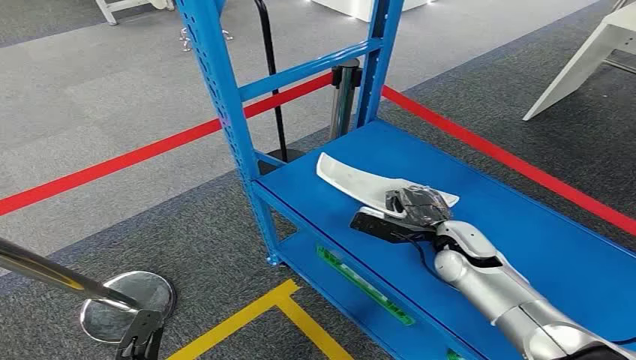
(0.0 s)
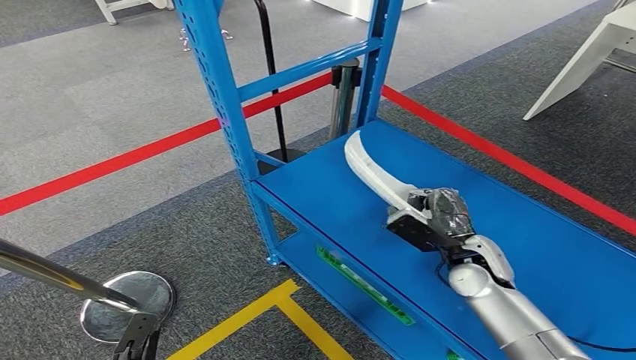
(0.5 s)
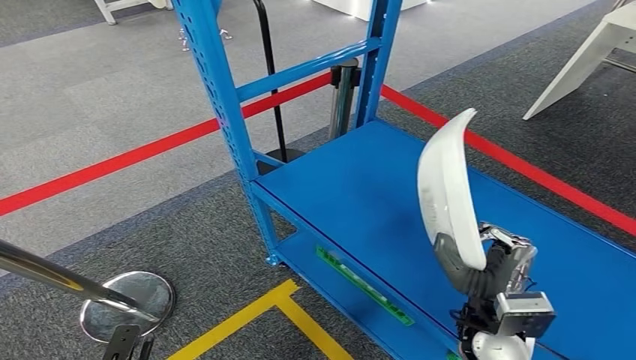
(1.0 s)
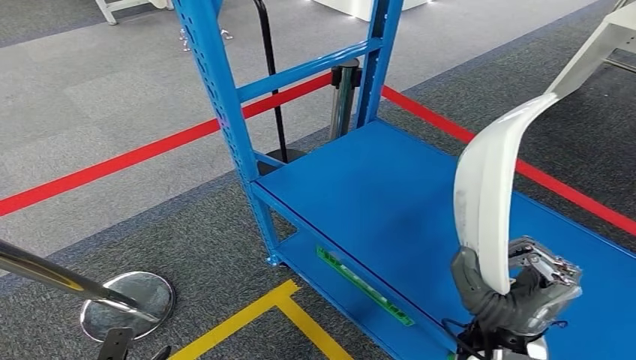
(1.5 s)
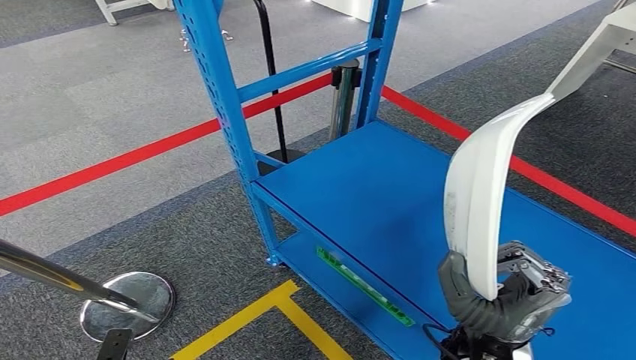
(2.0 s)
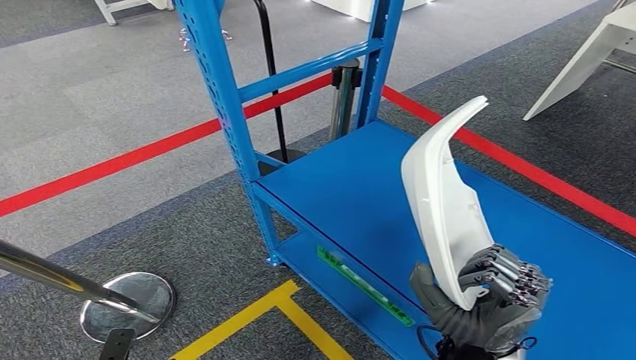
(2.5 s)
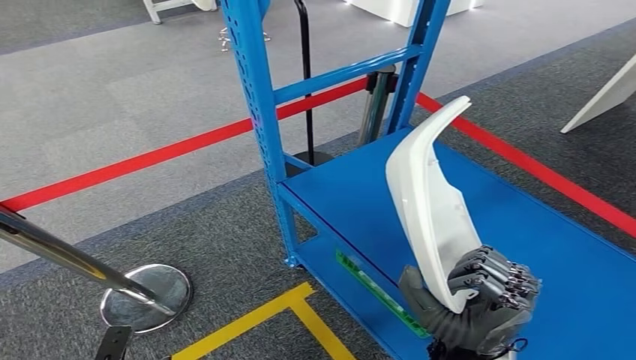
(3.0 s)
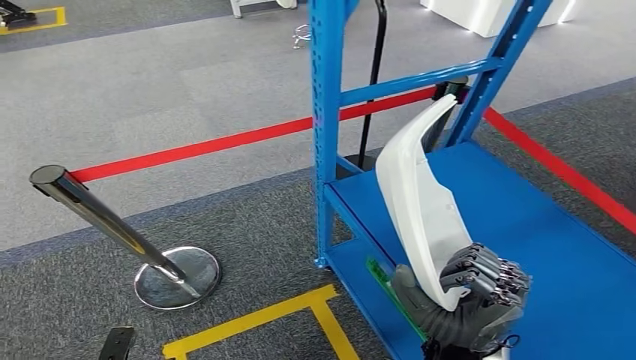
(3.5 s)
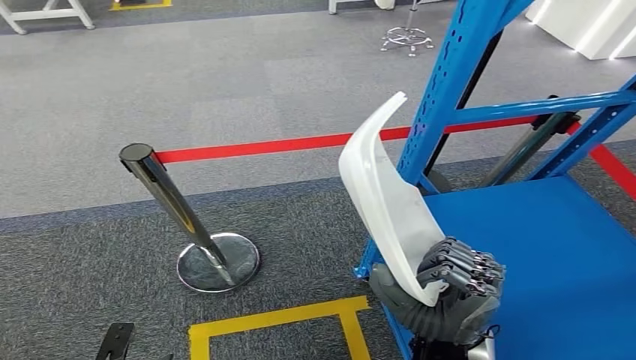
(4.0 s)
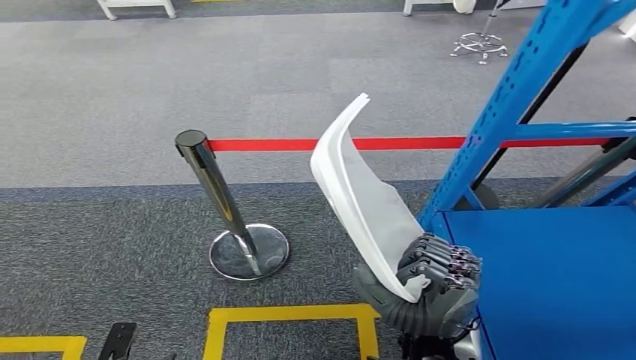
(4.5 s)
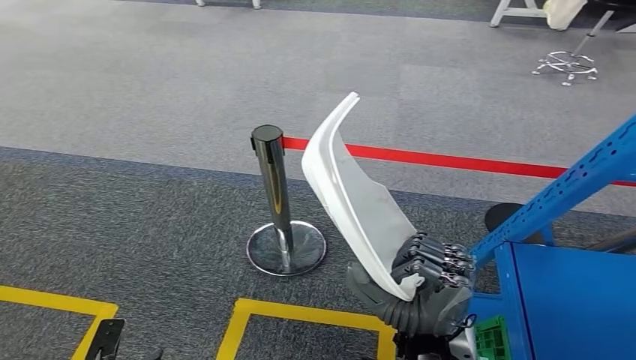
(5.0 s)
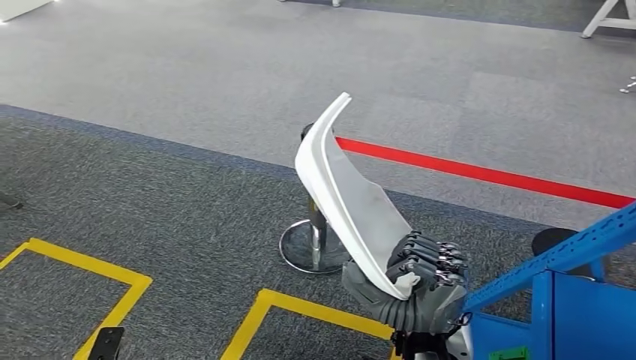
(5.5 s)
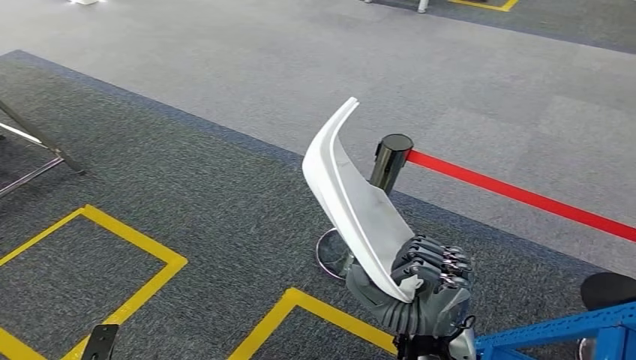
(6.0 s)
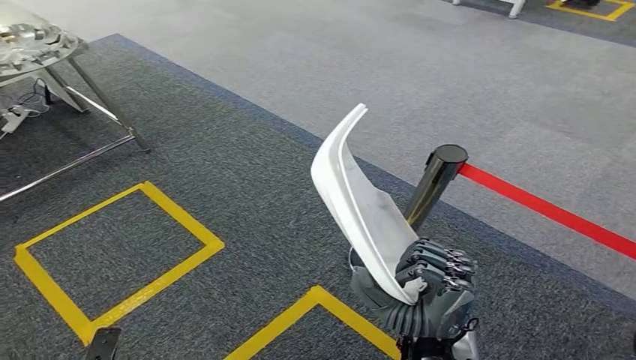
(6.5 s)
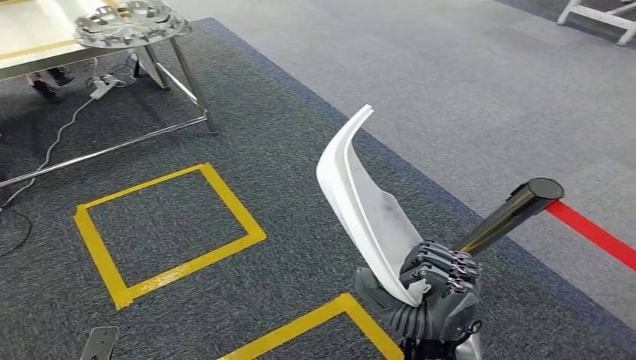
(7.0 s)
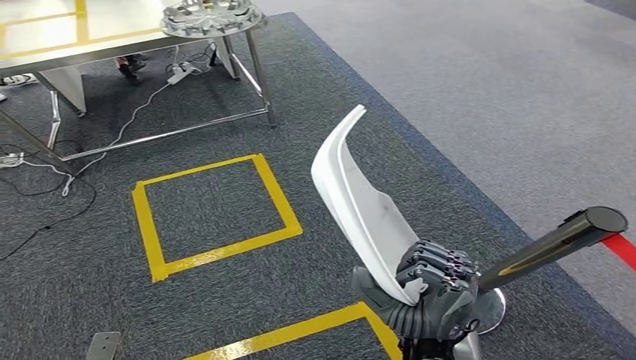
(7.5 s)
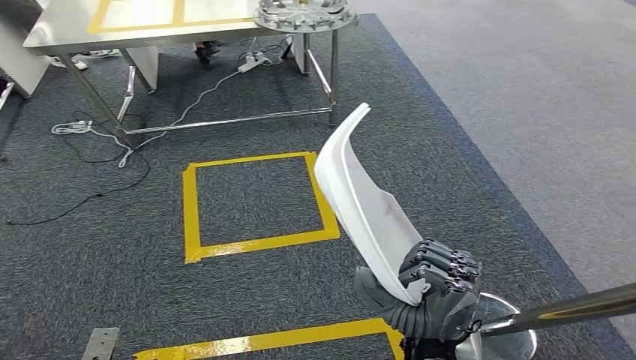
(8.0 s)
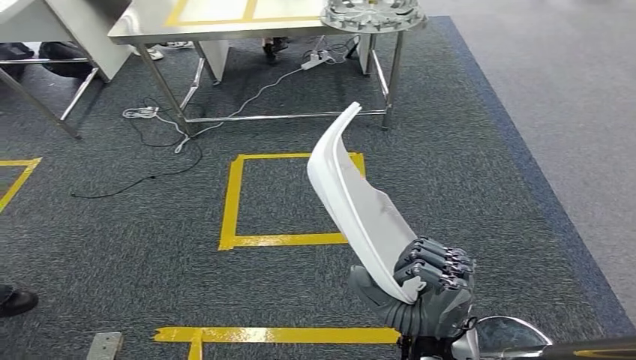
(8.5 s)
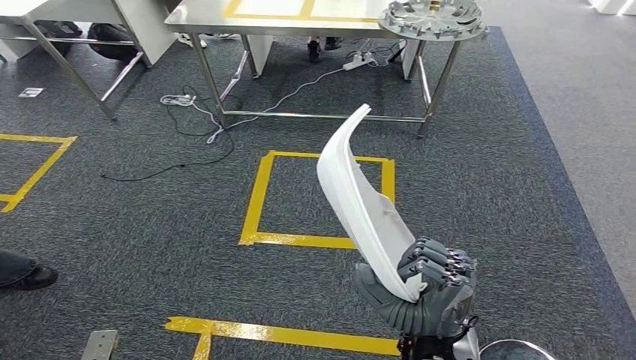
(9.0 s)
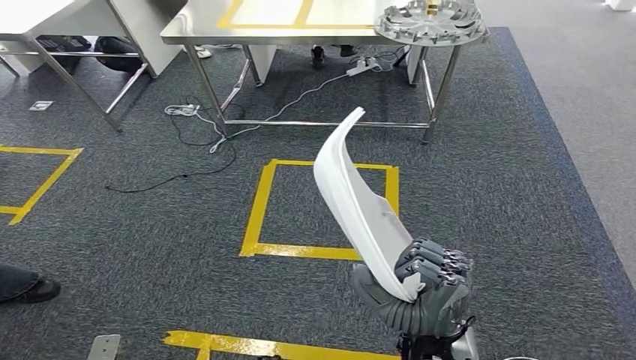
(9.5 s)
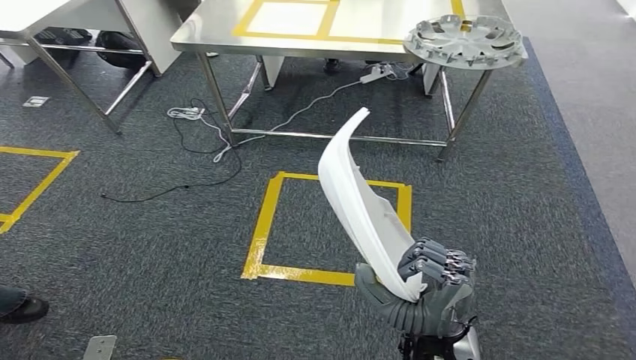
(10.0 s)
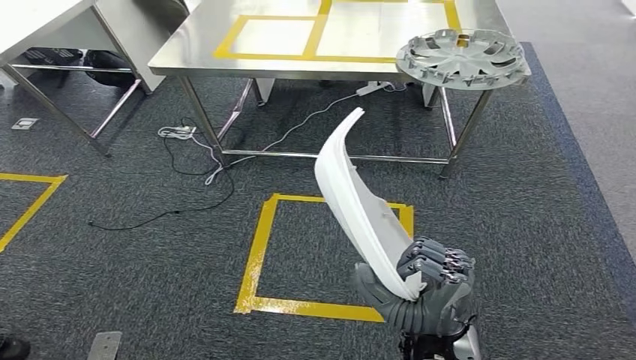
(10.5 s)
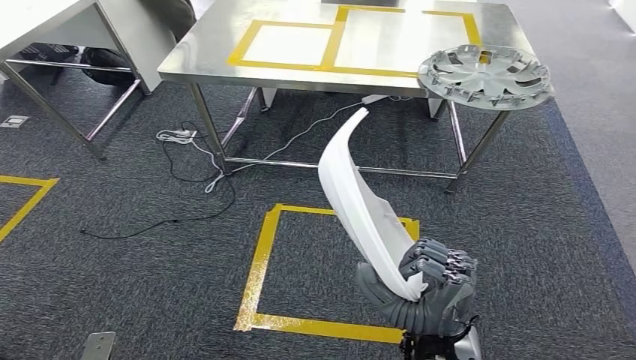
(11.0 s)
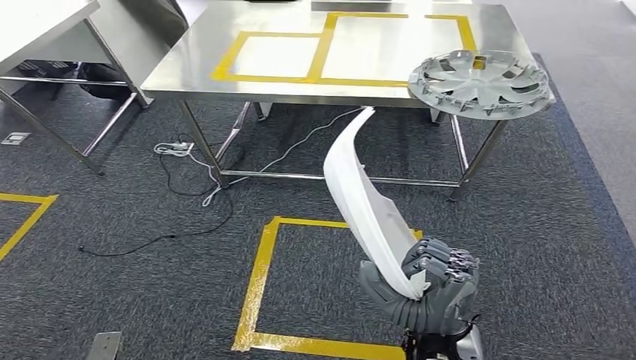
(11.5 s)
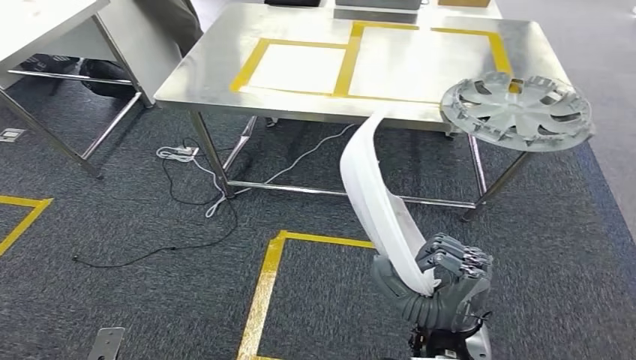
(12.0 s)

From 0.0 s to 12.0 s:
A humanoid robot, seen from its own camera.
Step, from 0.0 s to 2.5 s: Pick up the small component from the shelf.

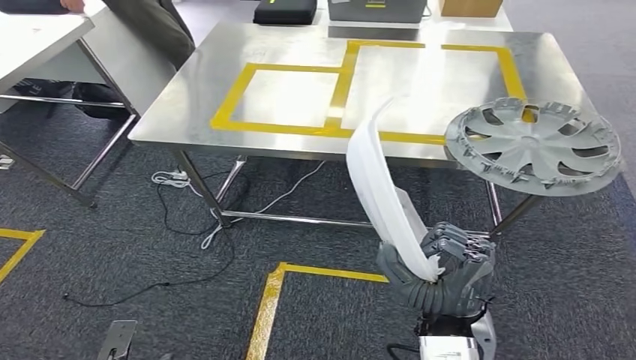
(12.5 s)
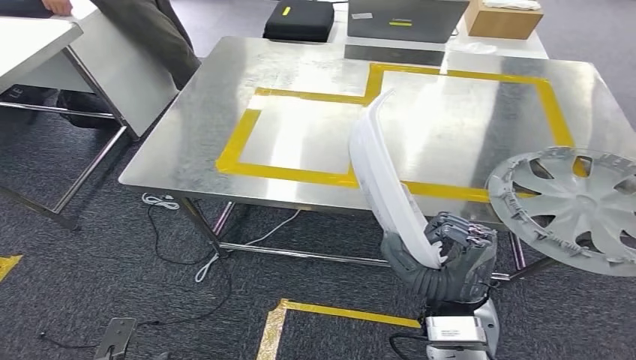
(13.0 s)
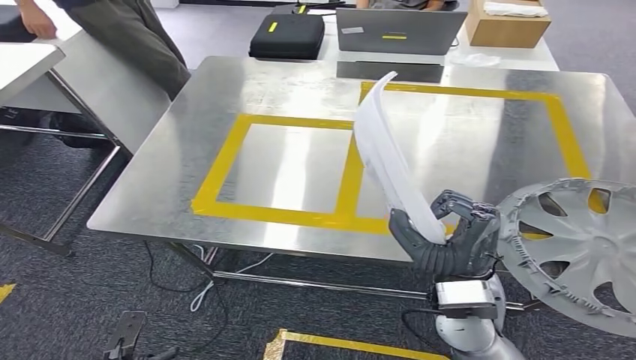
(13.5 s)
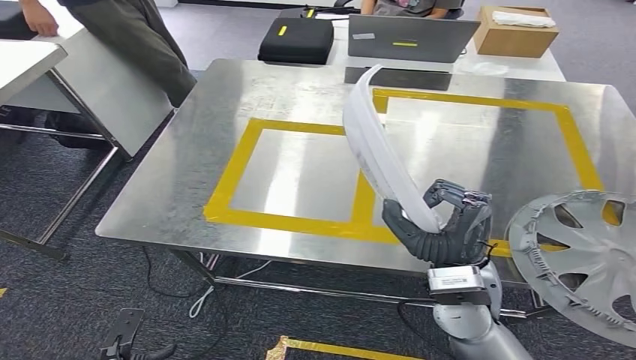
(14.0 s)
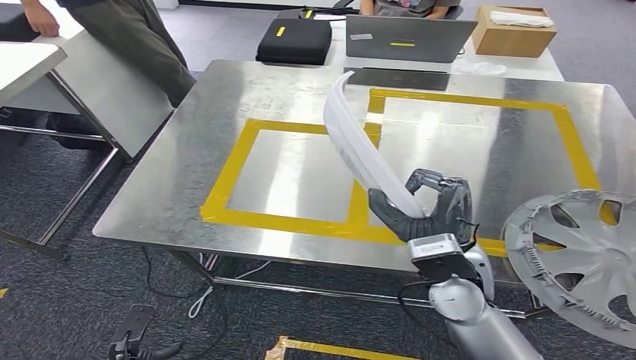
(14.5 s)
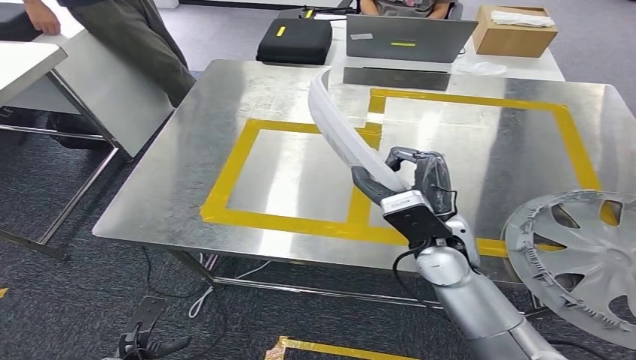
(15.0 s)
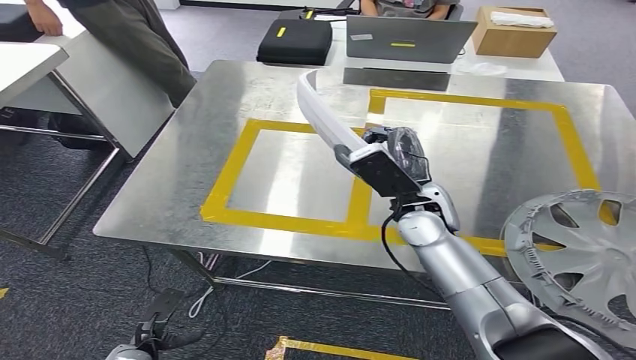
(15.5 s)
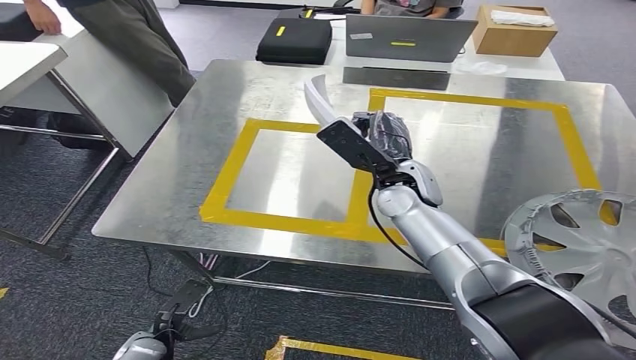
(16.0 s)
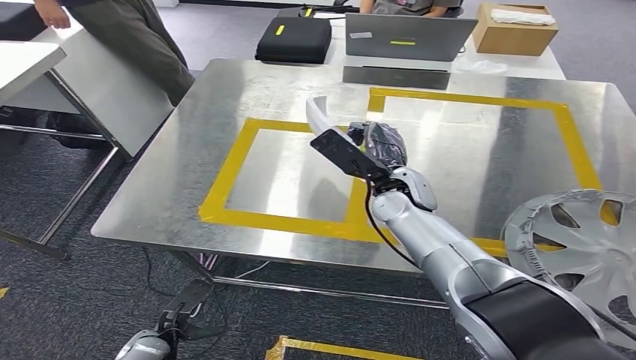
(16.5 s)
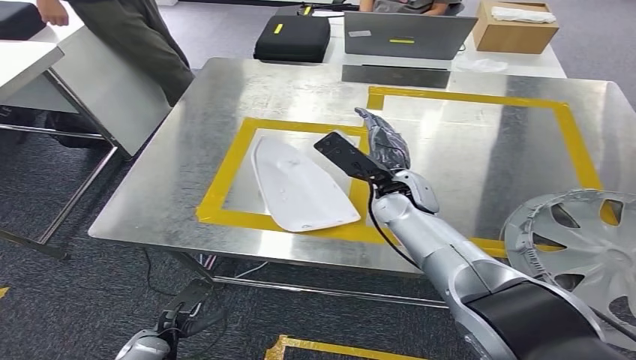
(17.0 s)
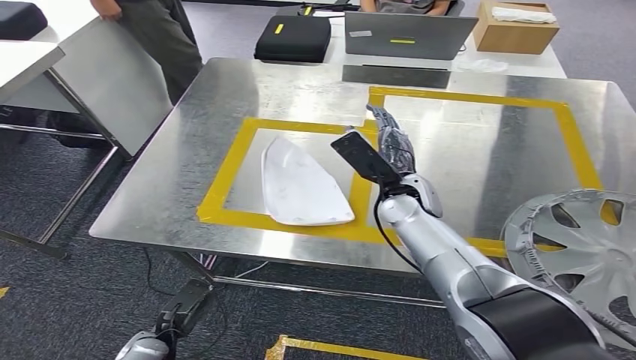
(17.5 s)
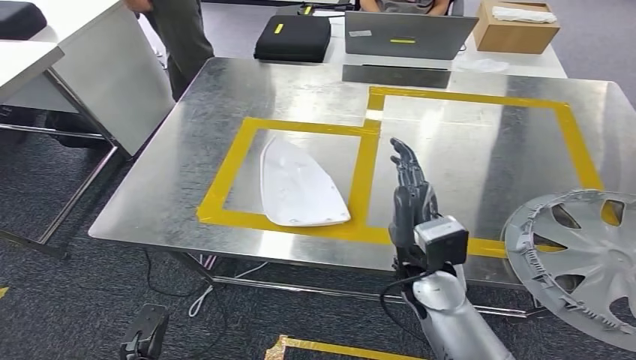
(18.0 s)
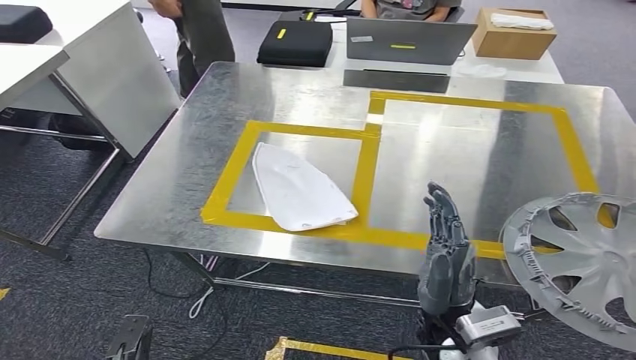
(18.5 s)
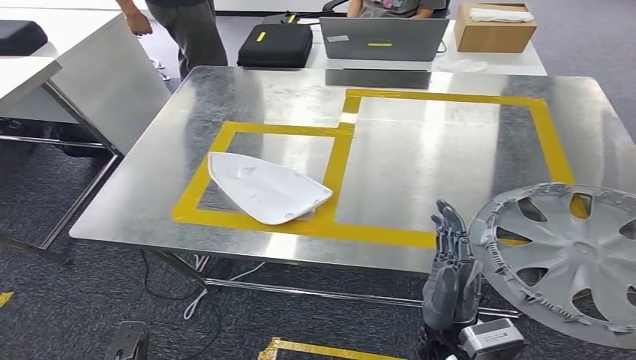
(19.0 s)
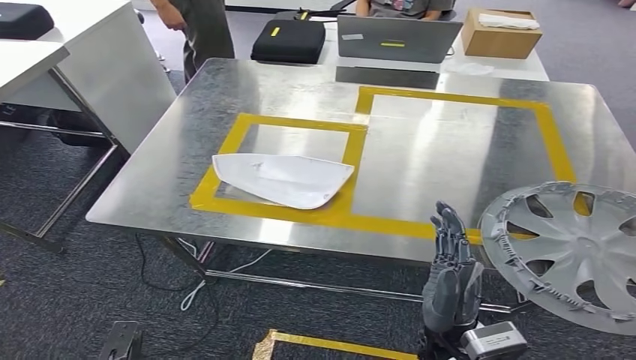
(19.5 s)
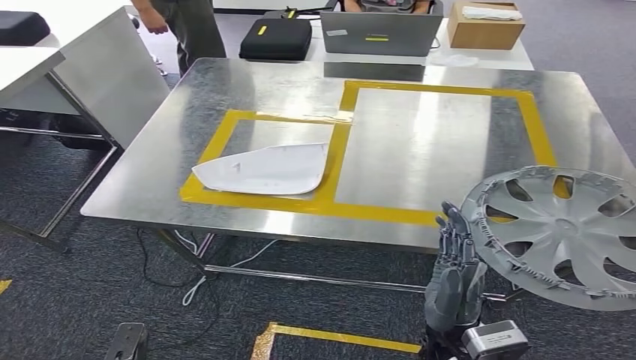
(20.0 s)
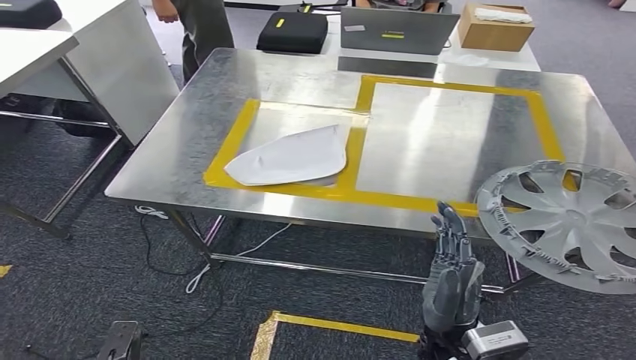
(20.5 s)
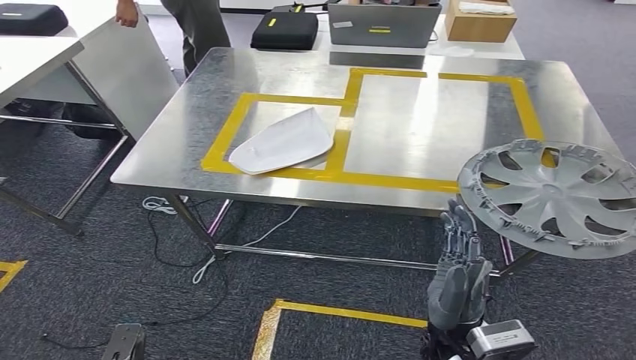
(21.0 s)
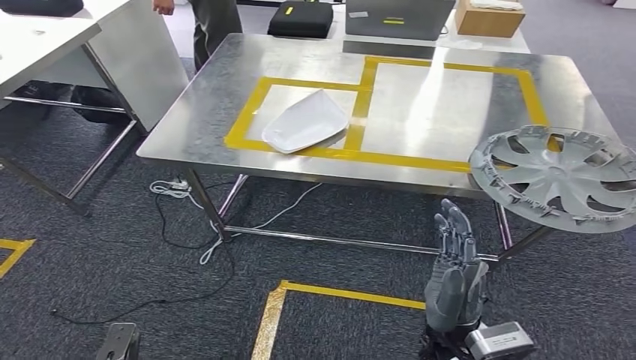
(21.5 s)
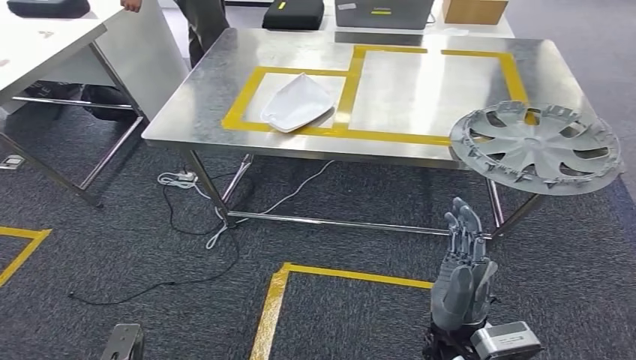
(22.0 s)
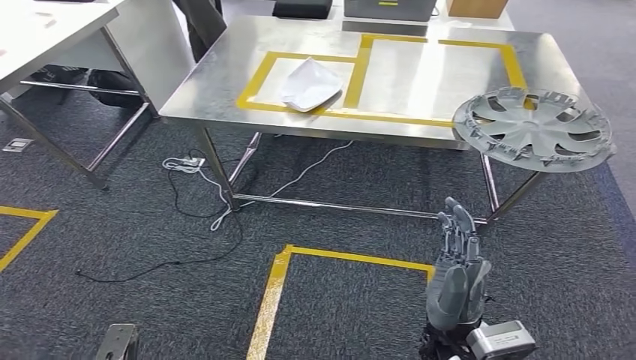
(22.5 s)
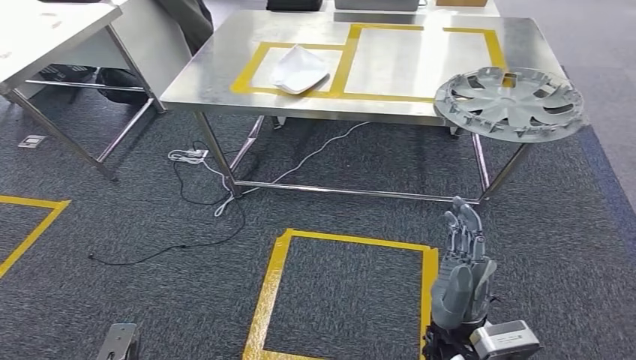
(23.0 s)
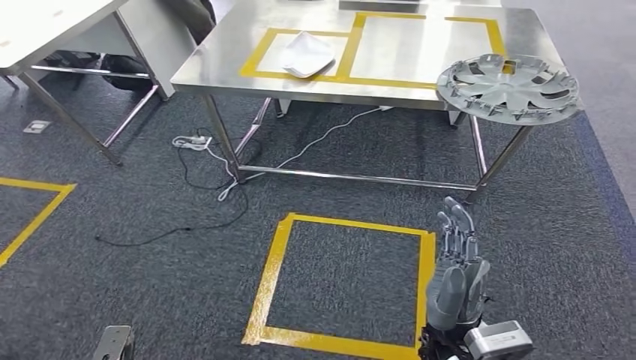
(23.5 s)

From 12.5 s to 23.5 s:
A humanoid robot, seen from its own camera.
Step, from 12.5 s to 15.0 s: Move the small component to the workbench.
Step, from 15.5 s to 19.5 s: Insert the small component into the corresponding slot on the workbench.
From 14.5 s to 16.0 s: The right hand is displaced forward by about 15 cm. Meanwhile the left hand shifts approximately 5 cm forward.
